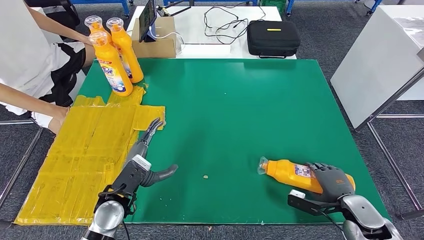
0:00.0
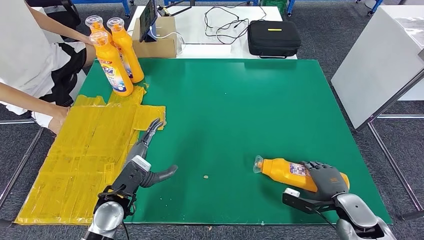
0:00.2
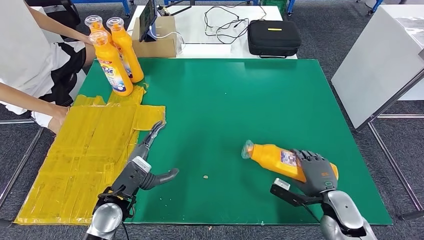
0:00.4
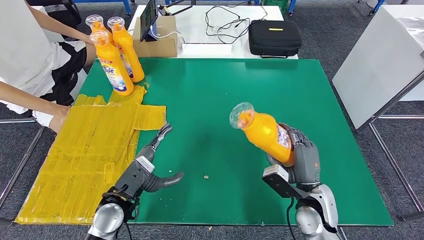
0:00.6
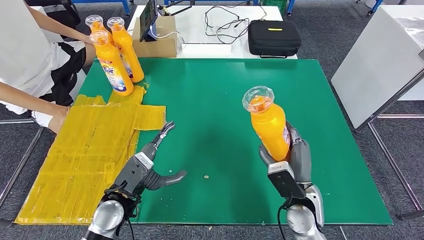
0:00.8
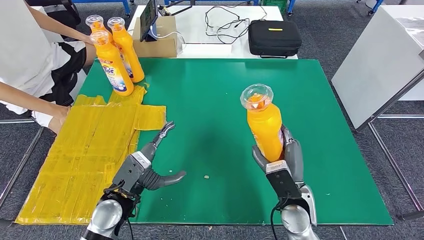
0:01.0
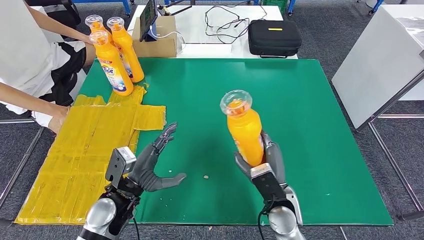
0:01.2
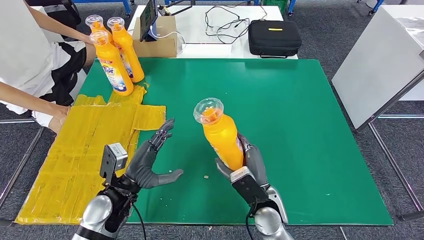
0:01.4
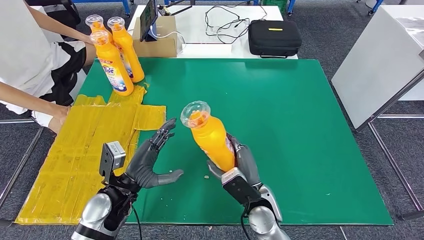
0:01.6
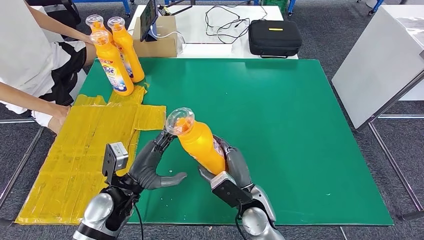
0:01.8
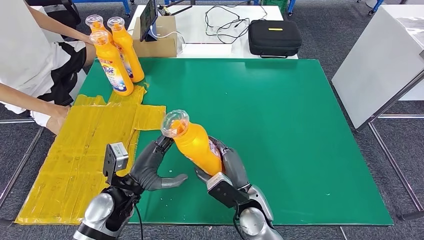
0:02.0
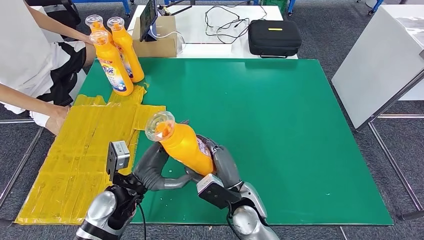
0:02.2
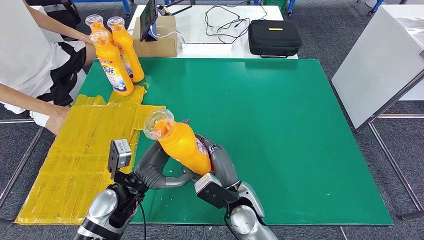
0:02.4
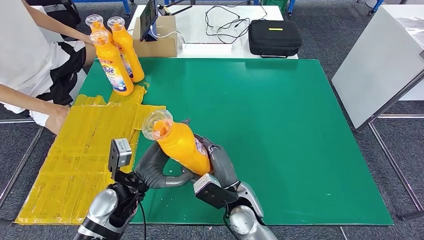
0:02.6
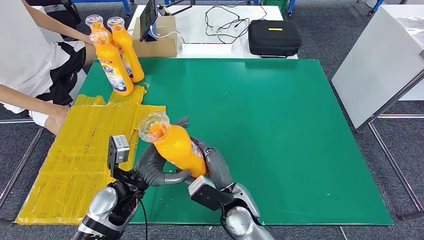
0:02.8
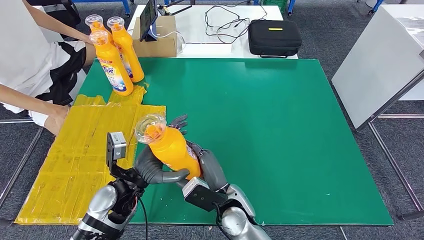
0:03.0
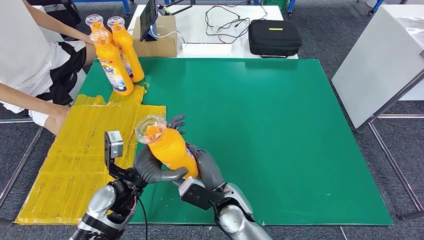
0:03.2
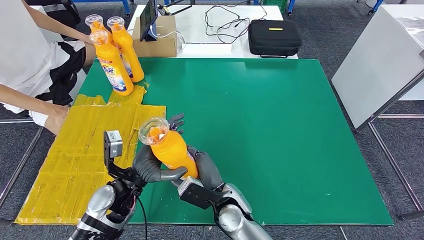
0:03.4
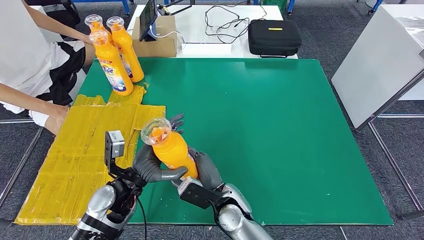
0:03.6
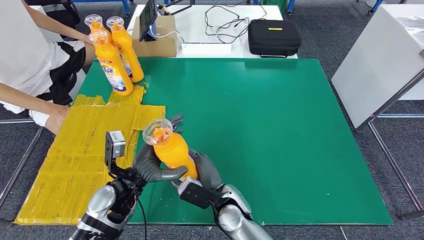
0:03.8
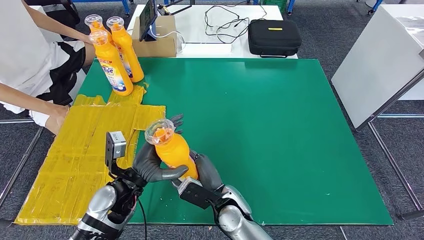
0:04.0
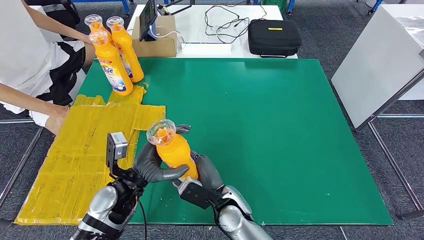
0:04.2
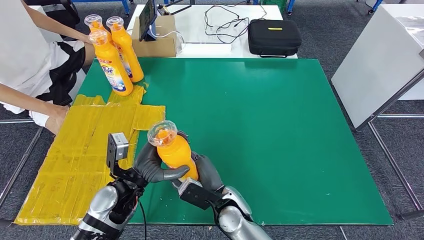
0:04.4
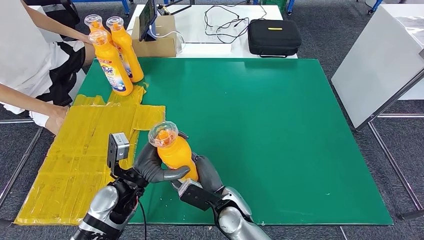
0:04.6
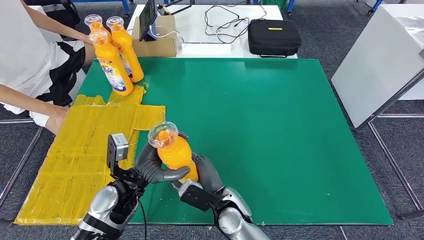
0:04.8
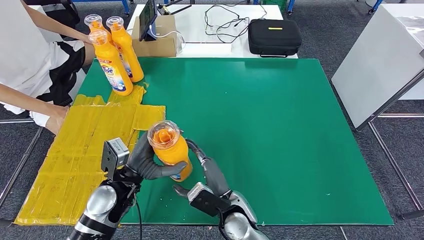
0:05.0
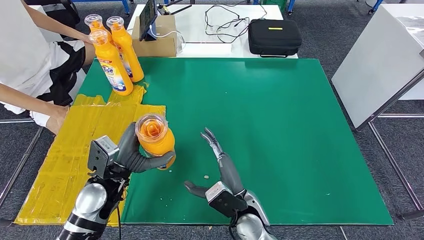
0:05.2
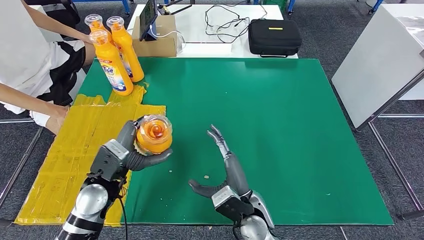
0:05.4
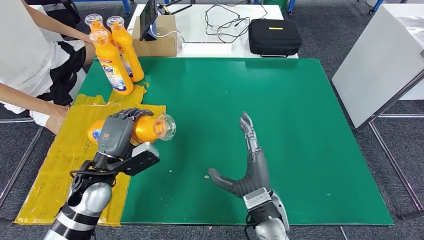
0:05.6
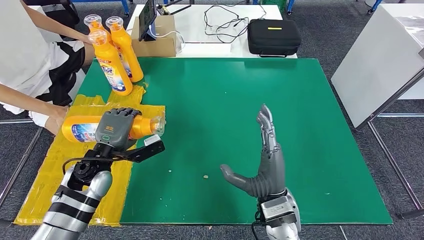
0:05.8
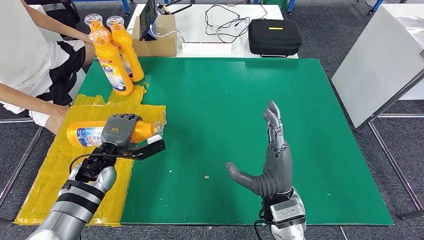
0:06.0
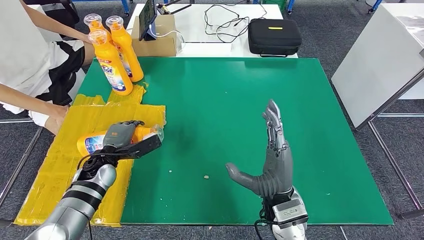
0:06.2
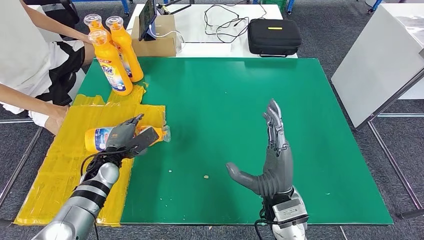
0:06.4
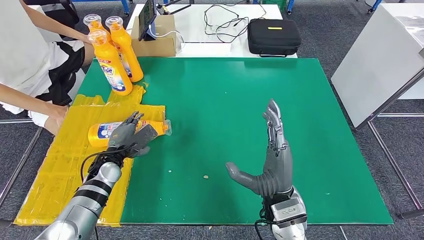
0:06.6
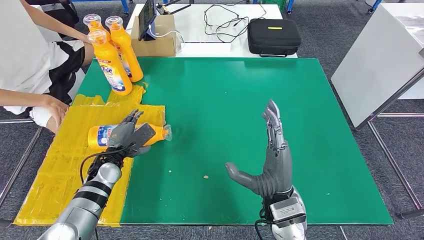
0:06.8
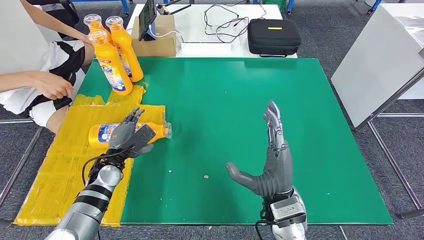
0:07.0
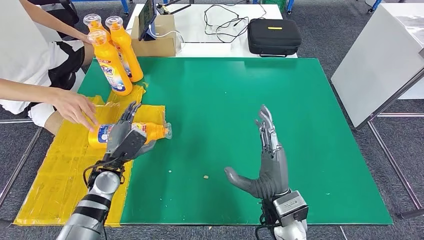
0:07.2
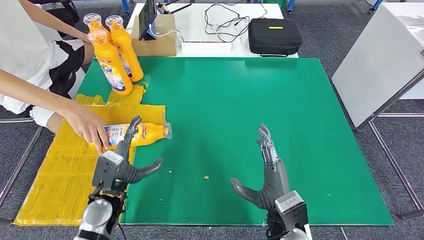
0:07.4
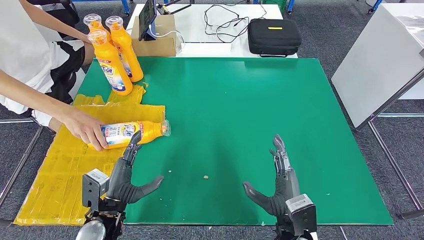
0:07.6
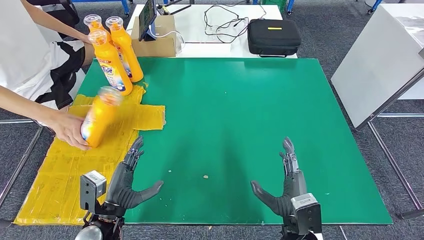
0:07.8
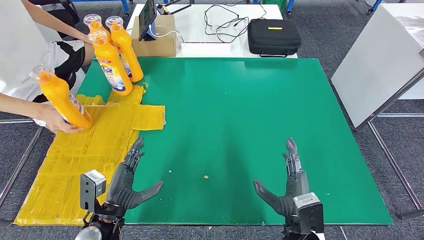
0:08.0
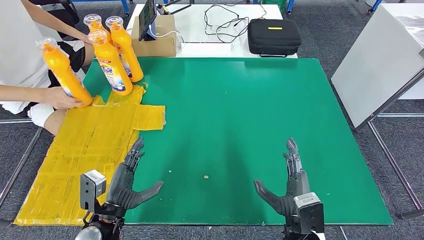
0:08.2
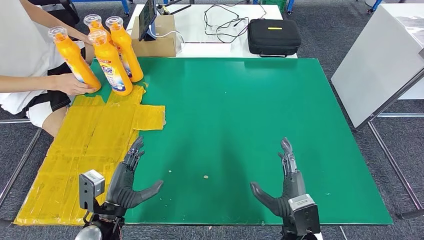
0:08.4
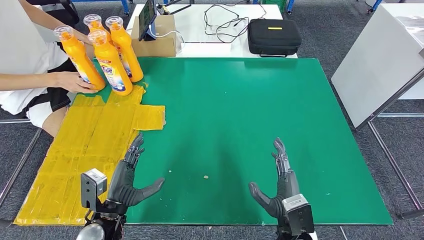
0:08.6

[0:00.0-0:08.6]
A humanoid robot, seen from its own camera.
Step, 0:00.0 to 0:03.6: Pick up the fast-moving consumer goods bottle from the table.
Step, 0:03.8 to 0:08.6: Flip the fast-moving consumer goods bottle to the front side.
0:00.0 to 0:01.4: The right hand moves to the left, about 25 cm.
0:01.4 to 0:02.8: The right hand travels to the left by roughly 5 cm.
0:02.8 to 0:04.4: The hands stay close to where they were, moving slightly.
0:04.4 to 0:05.8: The left hand heads to the left and forward, covering some 10 cm. The right hand goes roughly 15 cm to the right and upward.
0:05.8 to 0:07.2: The left hand goes about 5 cm downward.
0:07.2 to 0:08.6: The right hand goes approximately 5 cm downward. Meanwhile the left hand travels backward by approximately 10 cm.
